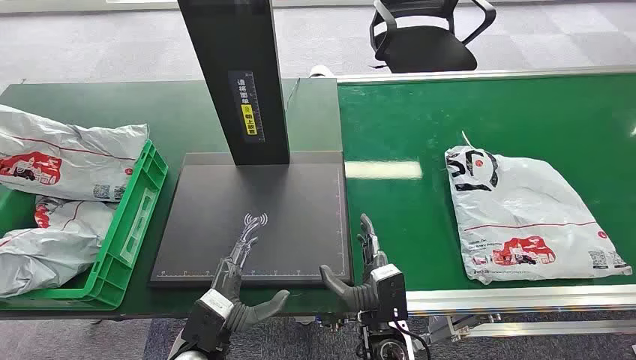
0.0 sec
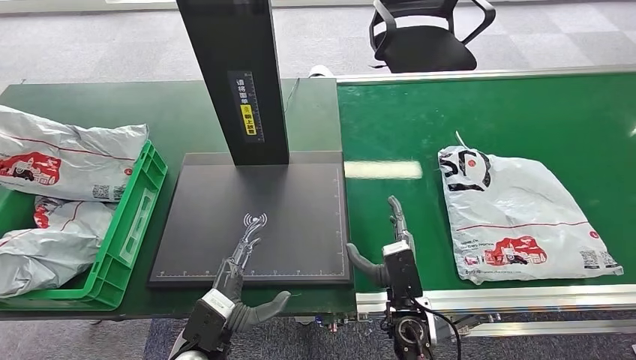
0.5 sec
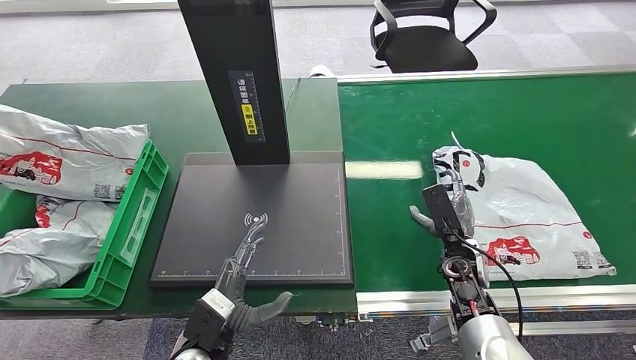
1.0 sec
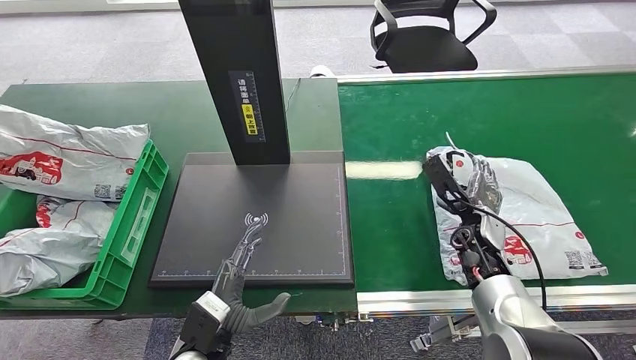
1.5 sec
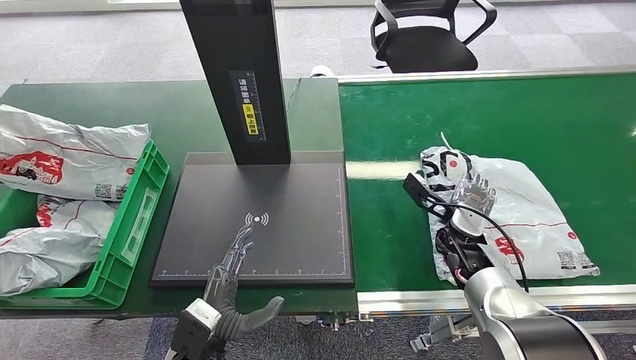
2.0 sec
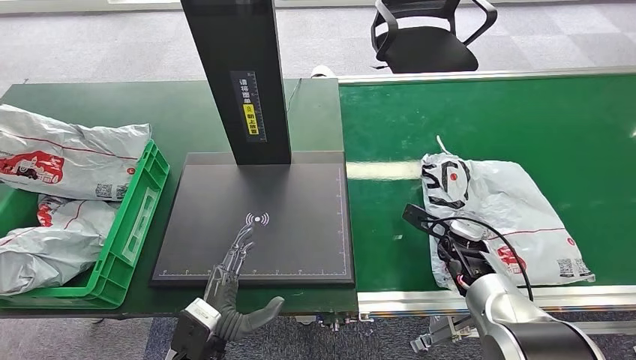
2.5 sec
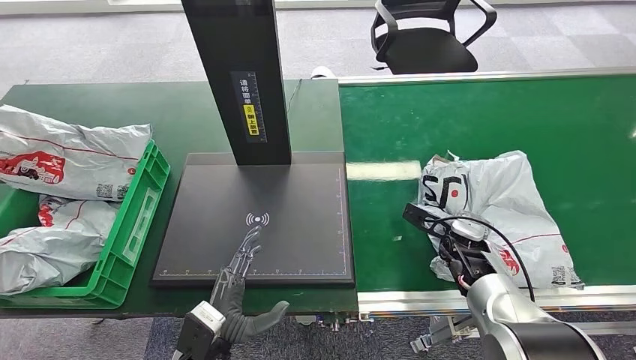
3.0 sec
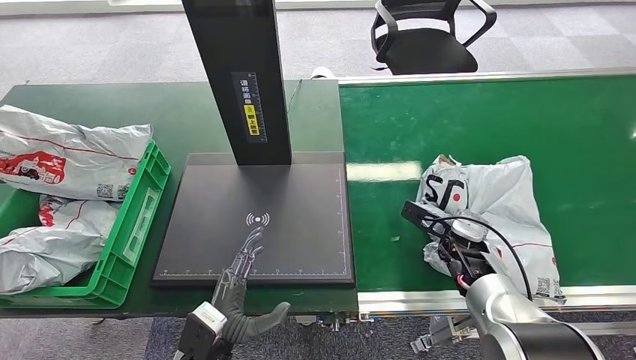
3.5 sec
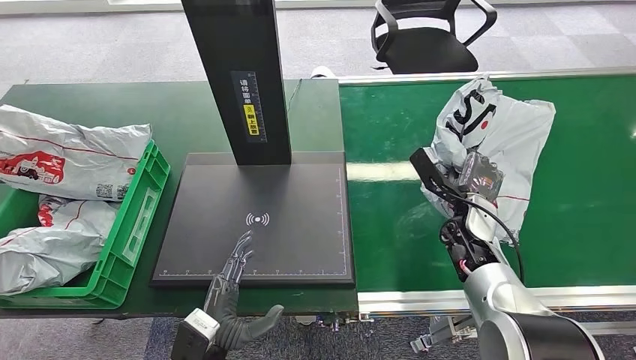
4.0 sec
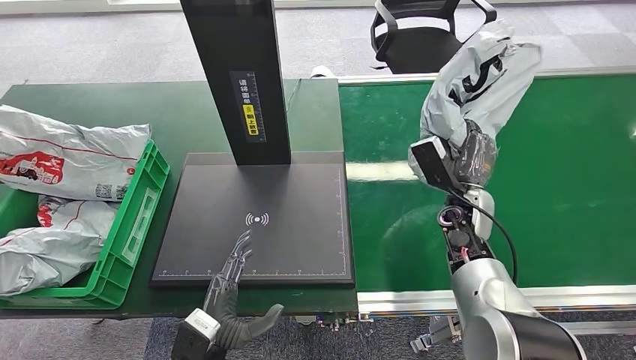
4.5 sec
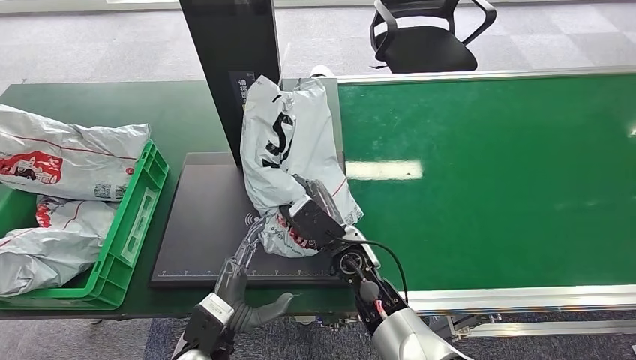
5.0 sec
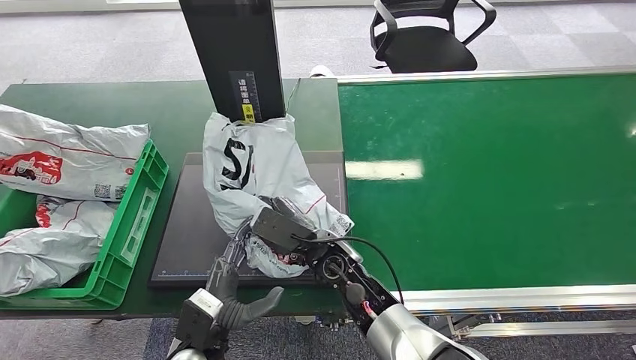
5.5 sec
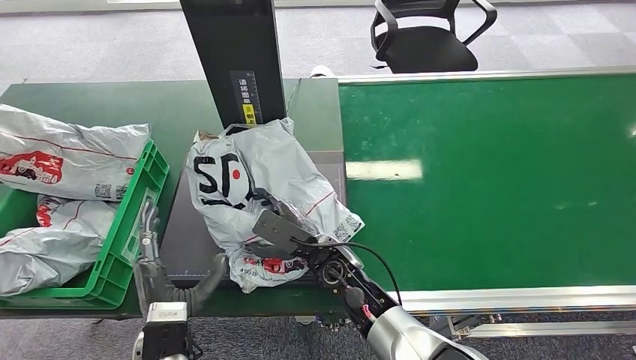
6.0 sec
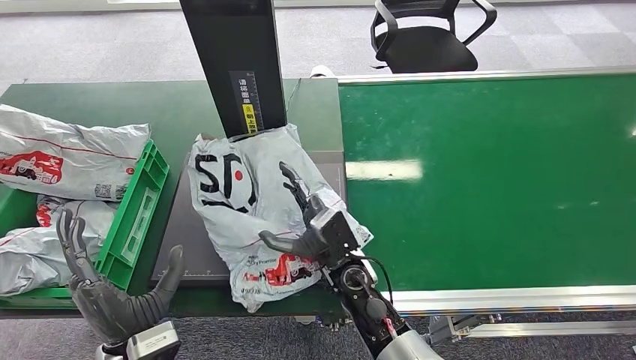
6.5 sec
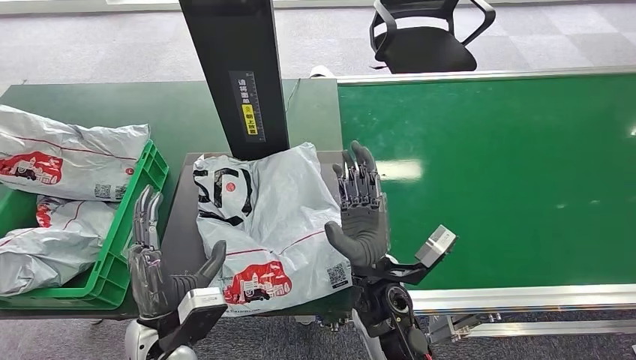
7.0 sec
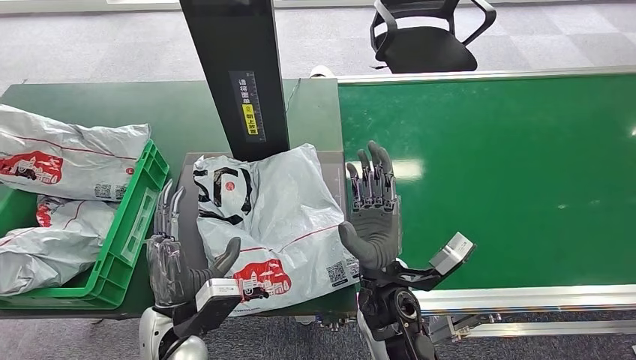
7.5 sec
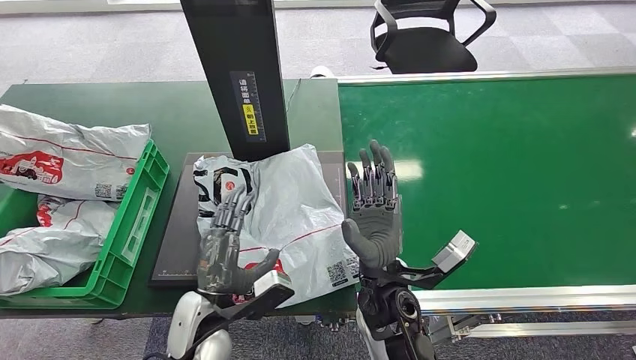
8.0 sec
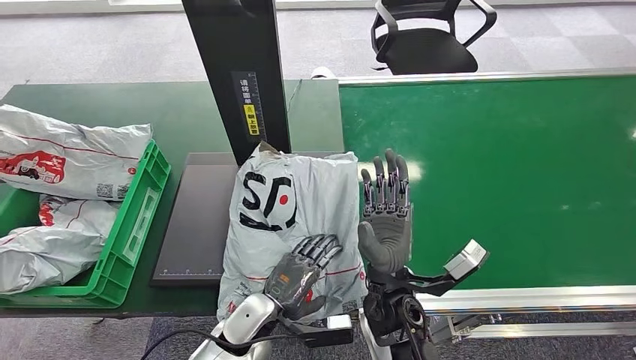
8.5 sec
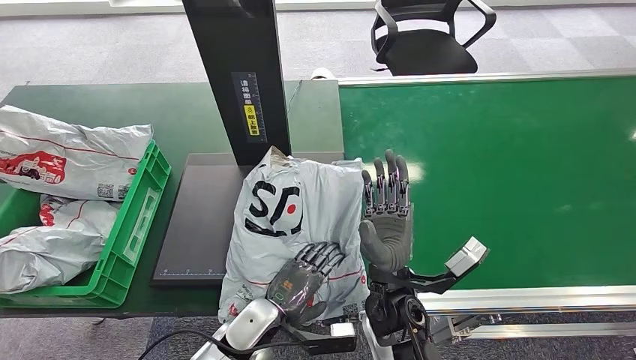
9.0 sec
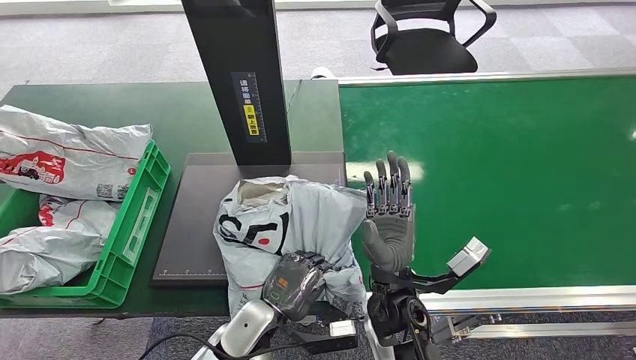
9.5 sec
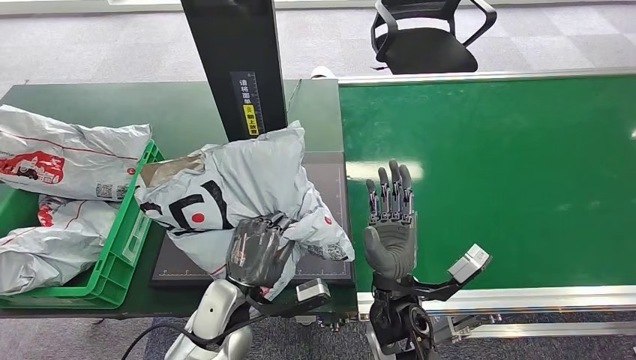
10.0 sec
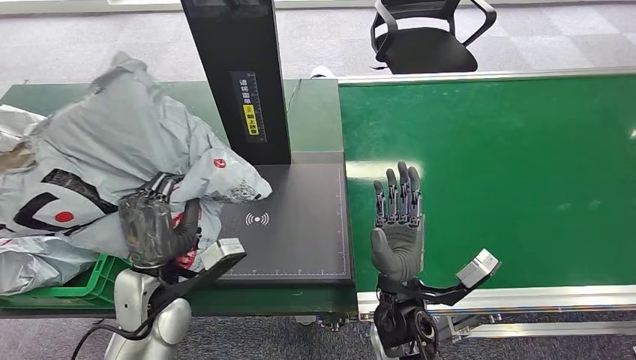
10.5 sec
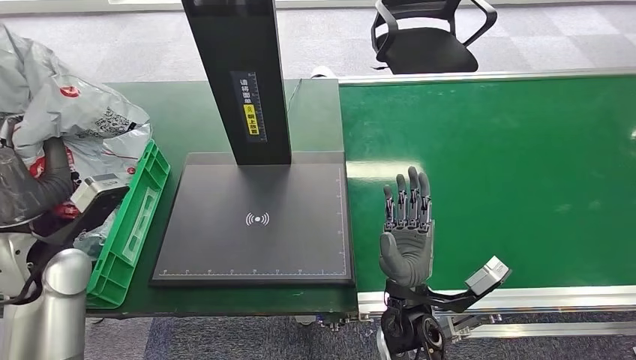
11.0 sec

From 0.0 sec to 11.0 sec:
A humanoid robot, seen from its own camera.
Step, from 0.0 sec to 4.0 sec: Pick up the package from the conveyor belt.
Step, from 4.5 sec to 6.5 sec: Place the package onto the inbound machine.
Step, from 7.5 sec to 10.5 sec: Pick up the package from the inbound machine.
From 5.5 sec to 7.5 sec: The left hand moves upward, roughly 5 cm. Meanwhile the right hand moves backward, approximately 5 cm.

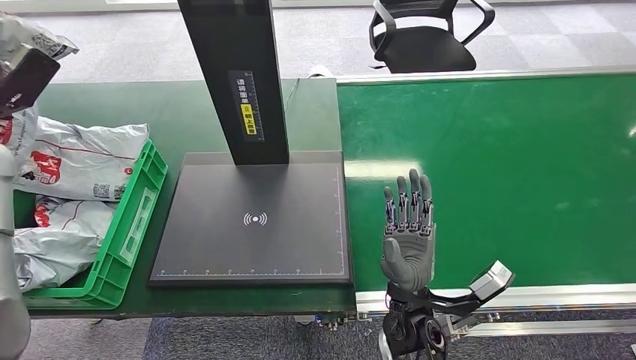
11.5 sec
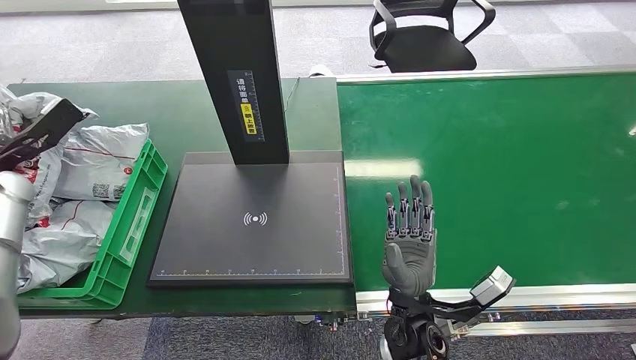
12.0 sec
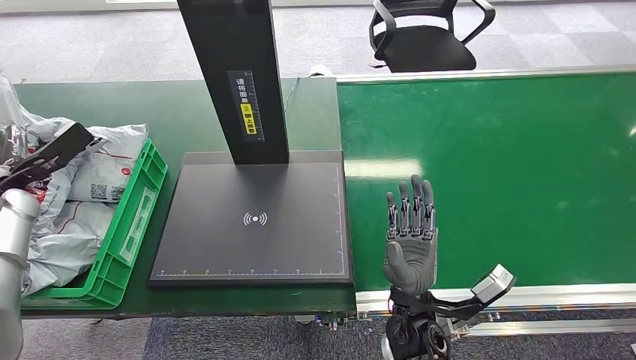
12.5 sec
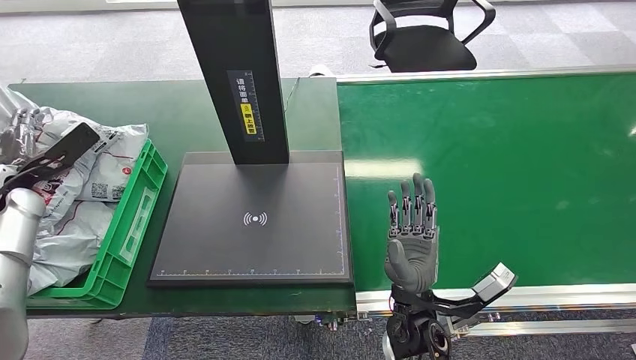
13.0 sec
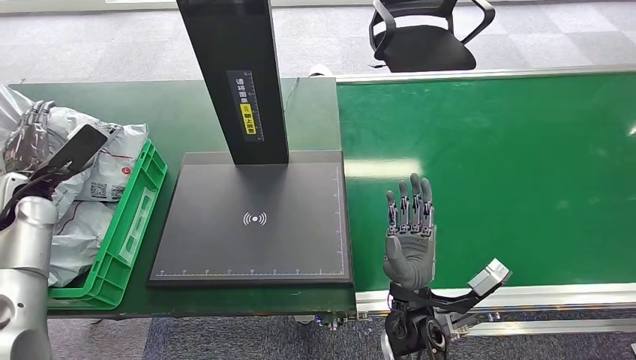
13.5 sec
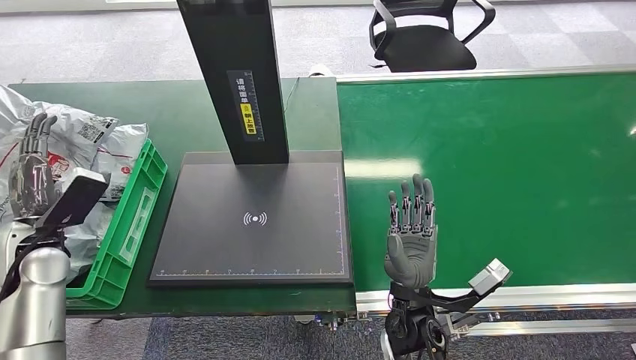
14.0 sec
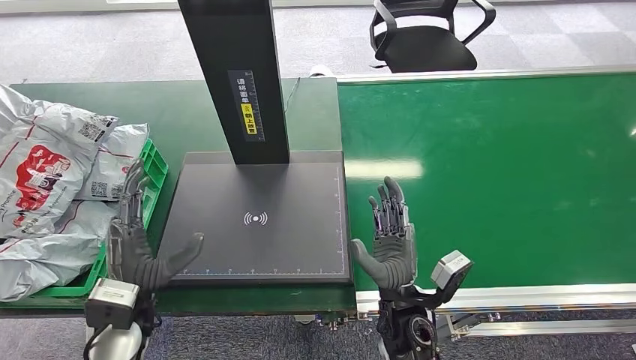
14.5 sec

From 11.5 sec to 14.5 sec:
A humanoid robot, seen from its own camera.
Step, from 11.5 sec to 14.5 sec: Place the package into the parcel locker.
From 11.5 sec to 13.0 sec: The left hand travels downward by roughly 10 cm.
From 13.0 sec to 14.5 sec: The left hand goes roughly 30 cm to the right and backward.
